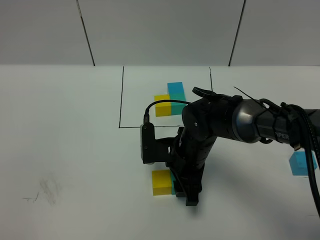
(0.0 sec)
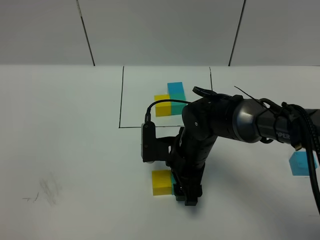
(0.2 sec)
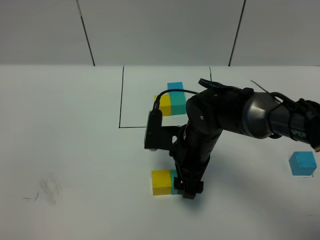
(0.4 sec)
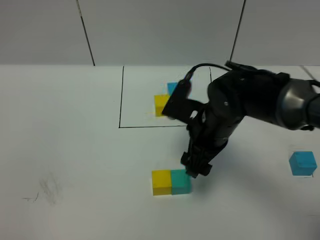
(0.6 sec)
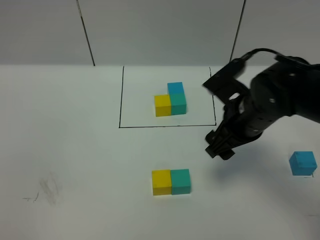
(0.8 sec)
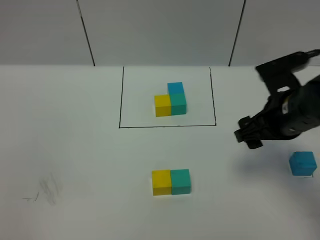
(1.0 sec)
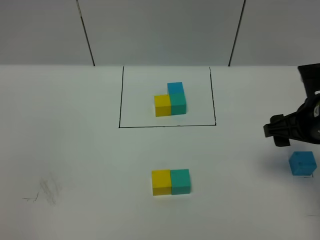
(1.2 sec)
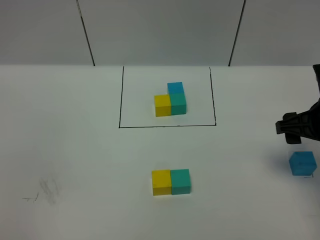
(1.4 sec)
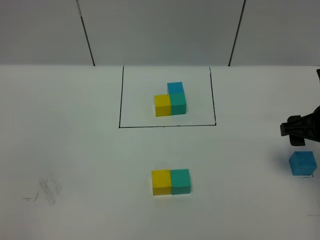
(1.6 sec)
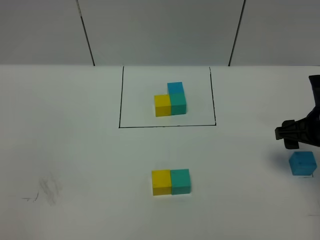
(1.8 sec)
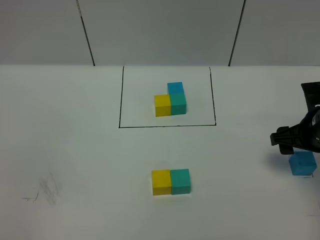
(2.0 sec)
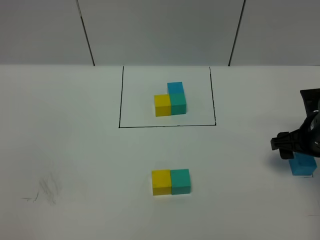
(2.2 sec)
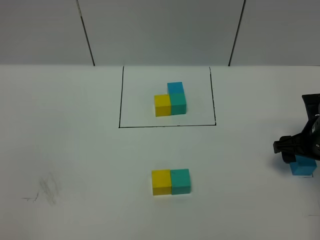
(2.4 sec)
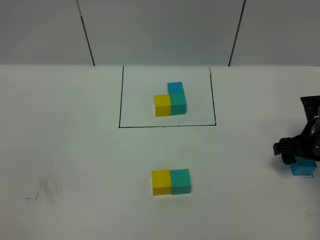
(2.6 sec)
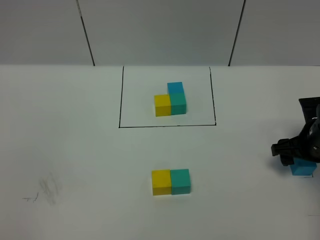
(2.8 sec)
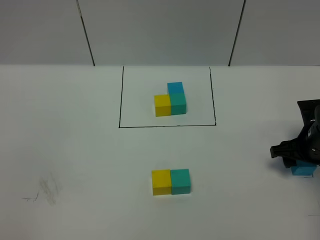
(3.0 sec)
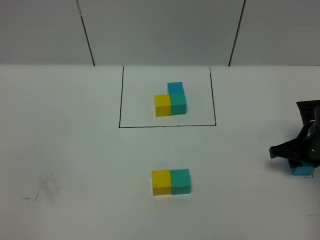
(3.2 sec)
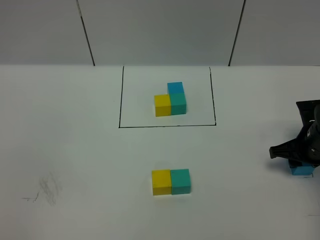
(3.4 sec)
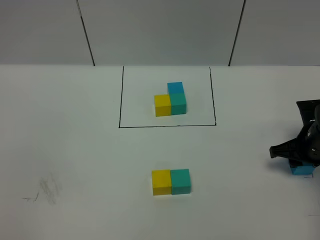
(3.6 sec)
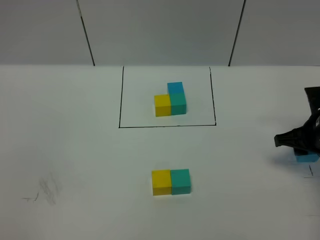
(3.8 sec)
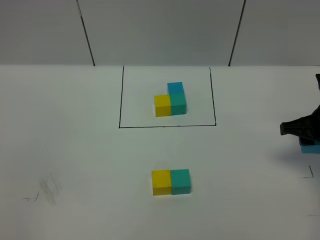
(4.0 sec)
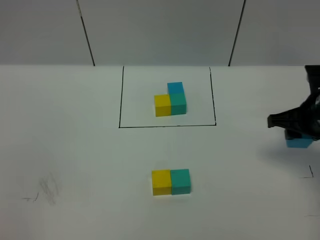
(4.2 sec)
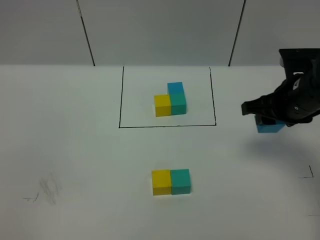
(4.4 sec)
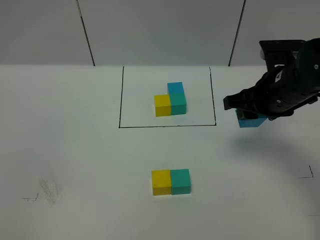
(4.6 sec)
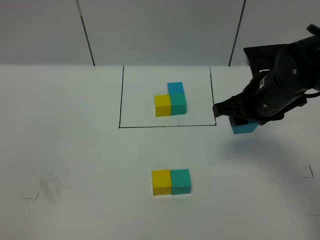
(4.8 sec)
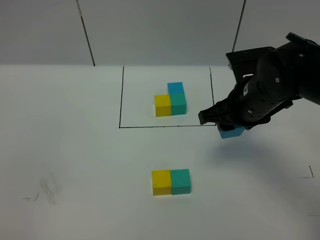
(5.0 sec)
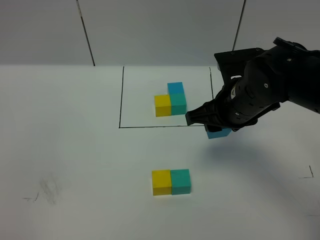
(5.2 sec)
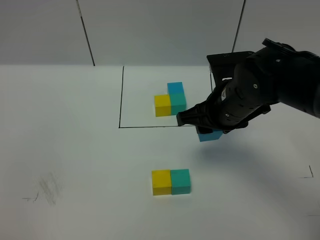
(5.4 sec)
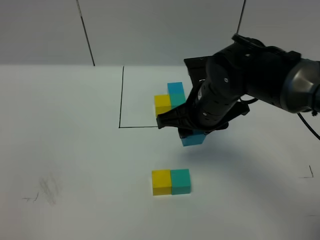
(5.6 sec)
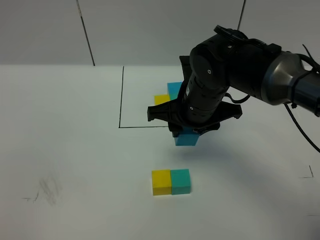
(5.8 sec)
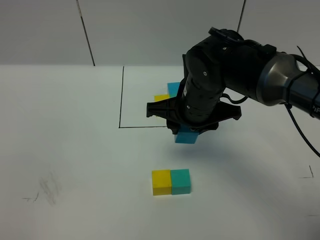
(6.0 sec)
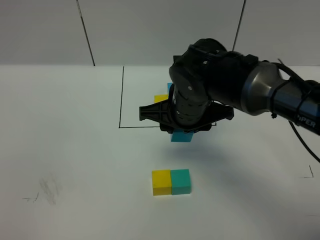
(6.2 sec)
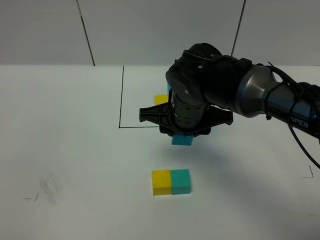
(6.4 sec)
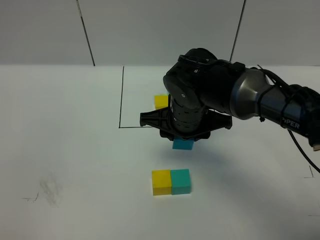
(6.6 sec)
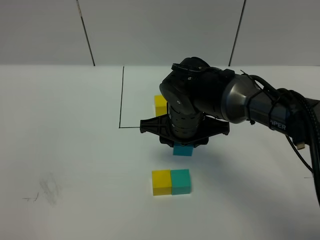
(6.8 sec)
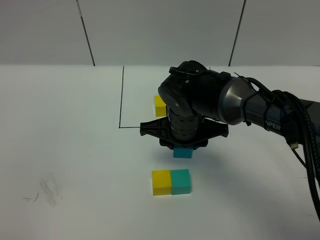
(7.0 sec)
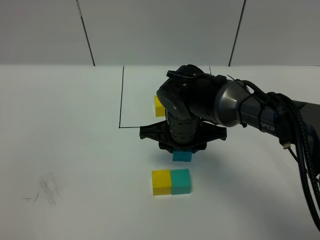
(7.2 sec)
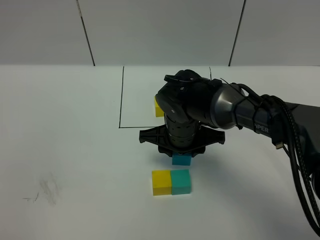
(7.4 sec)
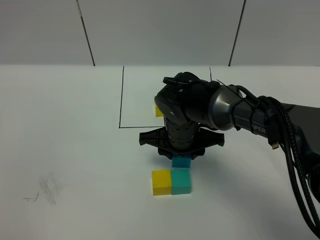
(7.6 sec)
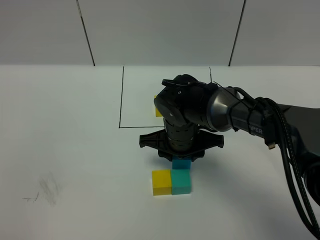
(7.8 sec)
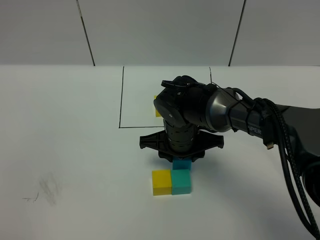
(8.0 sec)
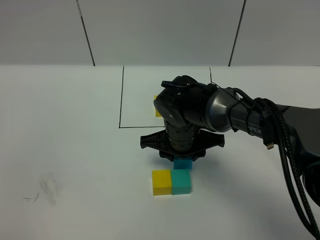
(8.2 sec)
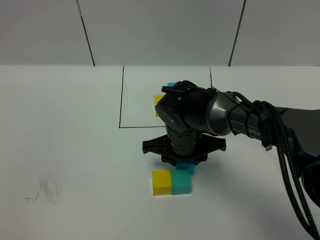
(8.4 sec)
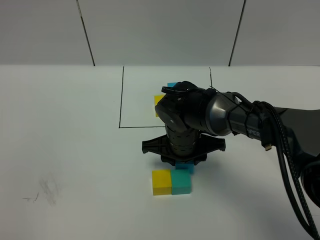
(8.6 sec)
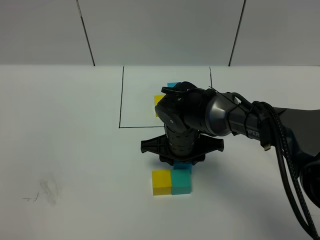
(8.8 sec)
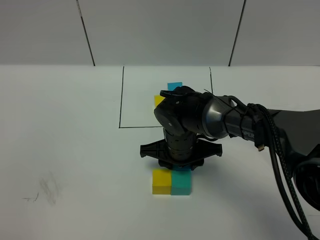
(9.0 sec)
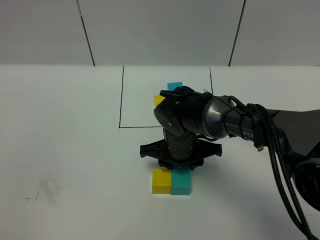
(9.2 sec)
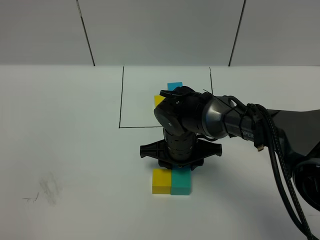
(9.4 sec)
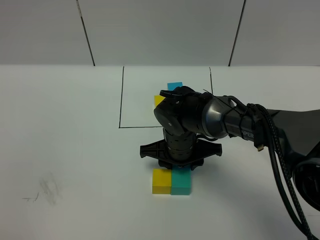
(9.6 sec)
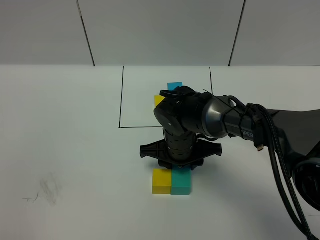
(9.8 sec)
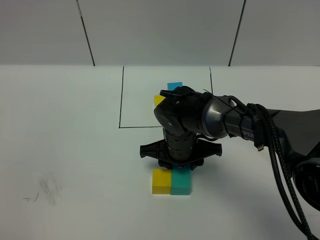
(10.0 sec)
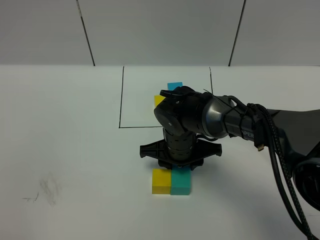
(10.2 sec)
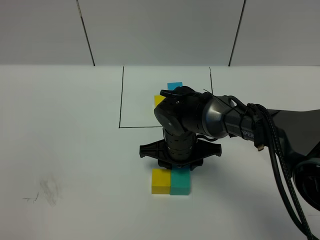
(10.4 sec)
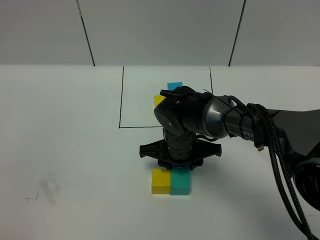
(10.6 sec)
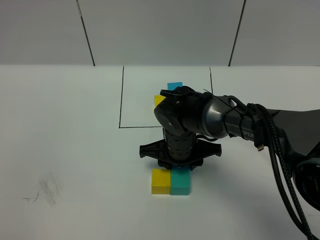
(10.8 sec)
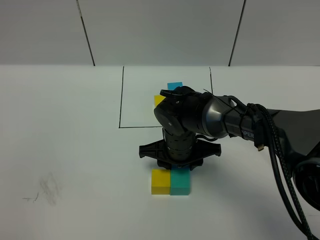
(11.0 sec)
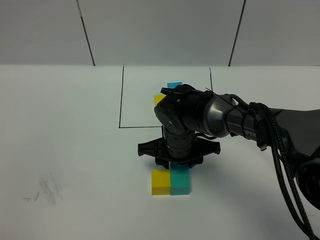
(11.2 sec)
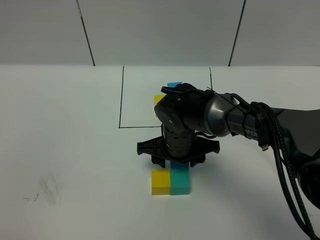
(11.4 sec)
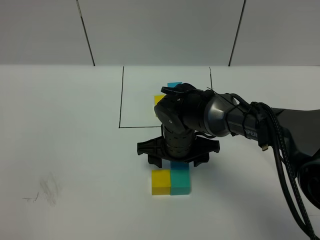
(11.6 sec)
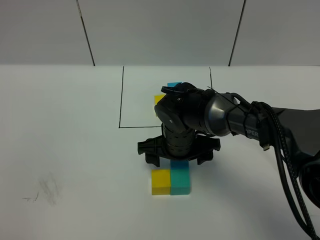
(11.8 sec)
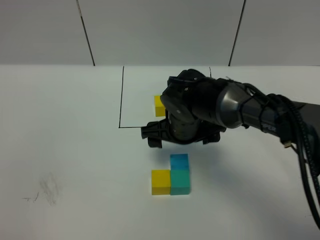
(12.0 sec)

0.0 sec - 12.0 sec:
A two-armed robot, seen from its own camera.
Task of the whole recording: According to the building block template in front, assemble the scattered blocks together.
Step, 0.4 sec - 11.8 sec: Put the blue cube on the behind of the green cube.
0.0 sec - 1.6 sec: The right gripper goes roughly 25 cm to the right, and opens up.
1.6 sec - 3.0 sec: The right gripper travels downward by approximately 10 cm.
3.0 sec - 4.4 sec: The right gripper goes approximately 15 cm upward and to the left.
4.4 sec - 6.0 sec: The right gripper heads to the left, covering some 15 cm.
6.0 sec - 7.6 sec: The right gripper shifts some 10 cm downward.
7.6 sec - 9.0 sec: There are only small adjustments of the grippers.
9.0 sec - 10.4 sec: Both grippers stay put.
10.4 sec - 12.0 sec: The right gripper goes roughly 5 cm upward, and opens its fingers.

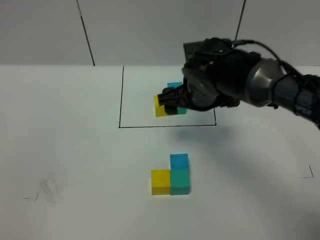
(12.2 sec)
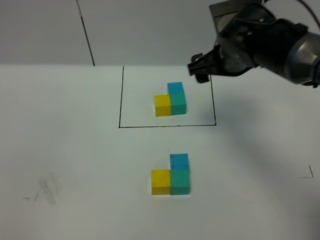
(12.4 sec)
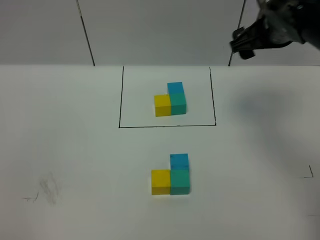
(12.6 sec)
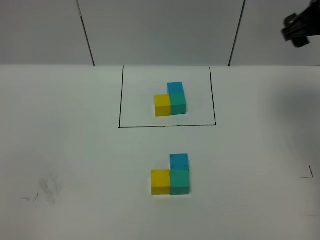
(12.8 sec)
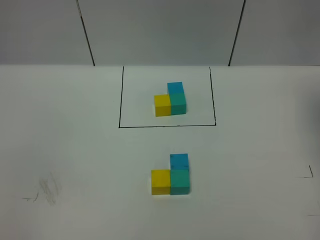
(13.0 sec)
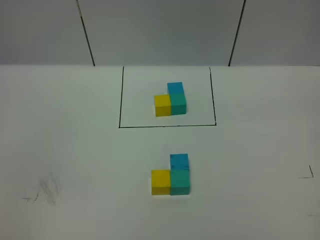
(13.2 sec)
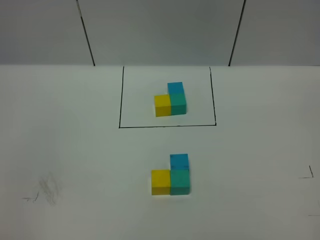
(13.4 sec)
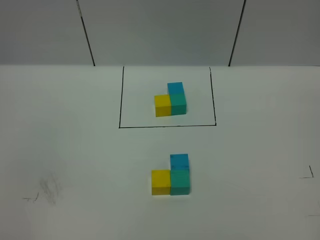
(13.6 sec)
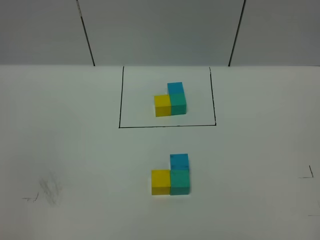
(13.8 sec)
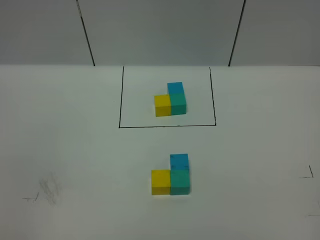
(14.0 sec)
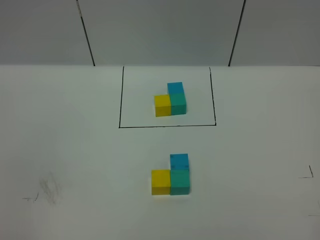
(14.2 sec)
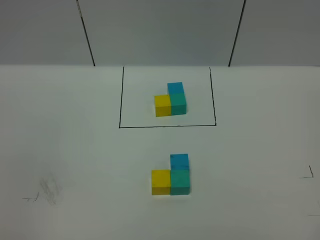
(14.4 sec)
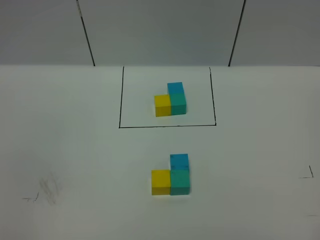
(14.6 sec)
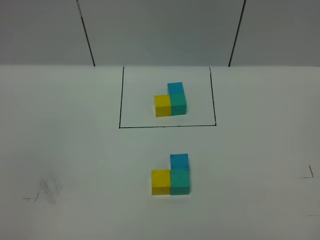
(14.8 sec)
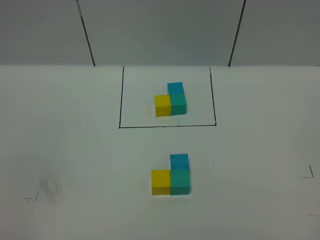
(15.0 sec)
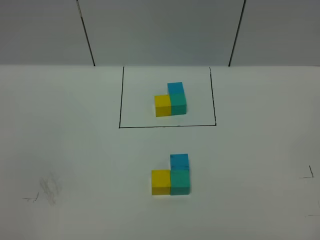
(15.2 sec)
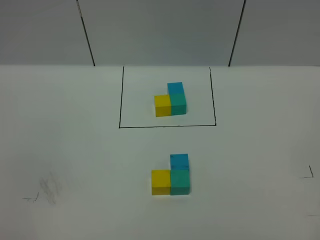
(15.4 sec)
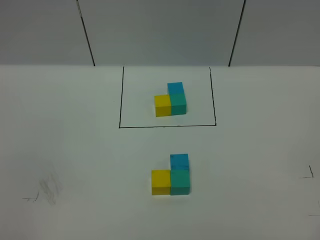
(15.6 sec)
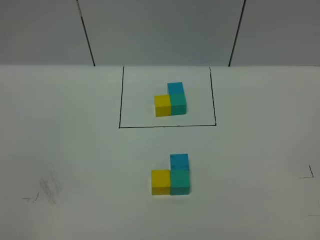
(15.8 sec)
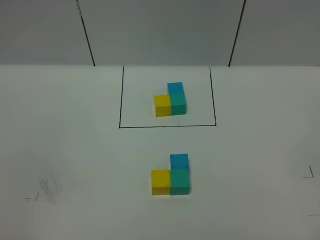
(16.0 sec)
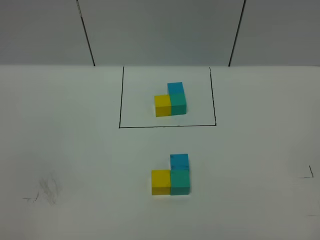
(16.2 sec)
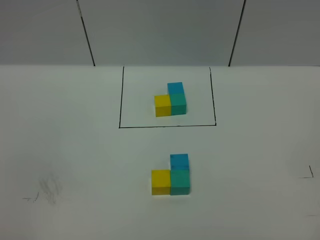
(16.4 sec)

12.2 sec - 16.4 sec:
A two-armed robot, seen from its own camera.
Task of the whole recording: According to the building block template in front, assemble the scattered blocks together.
12.2 sec - 13.6 sec: The right gripper heads to the right, upward and backward, covering some 40 cm.
